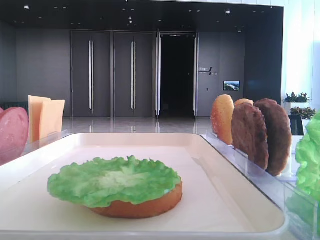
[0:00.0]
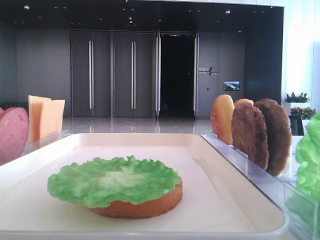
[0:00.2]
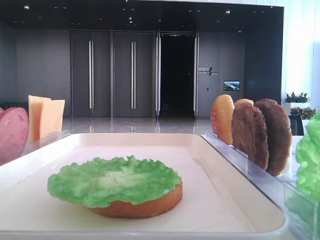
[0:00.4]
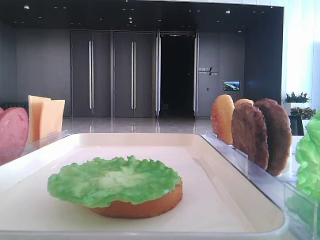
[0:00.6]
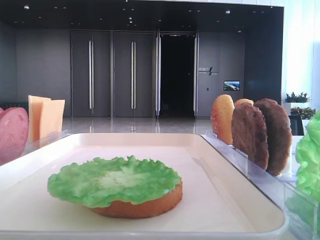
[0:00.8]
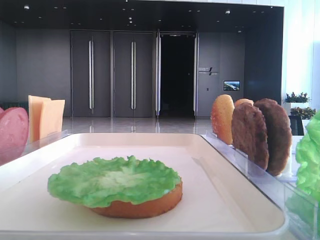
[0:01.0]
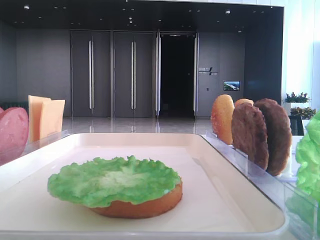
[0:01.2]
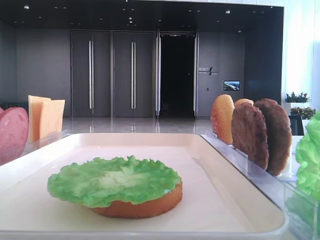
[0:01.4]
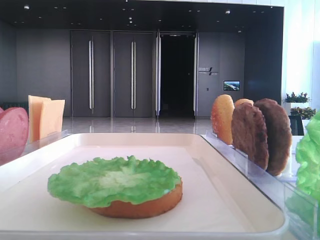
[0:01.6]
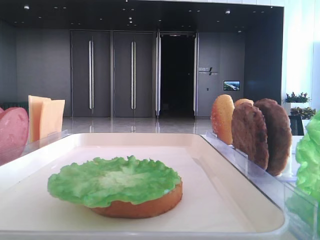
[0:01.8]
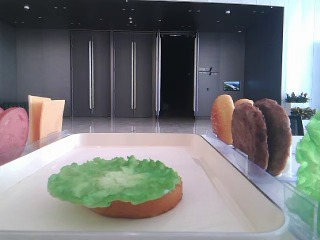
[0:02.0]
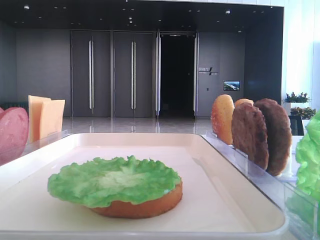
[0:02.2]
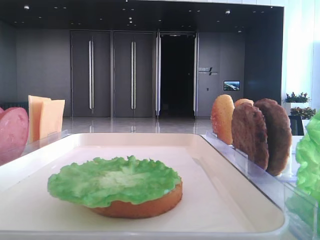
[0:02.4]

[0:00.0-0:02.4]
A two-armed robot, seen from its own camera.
0:00.0 to 0:02.4: Neither gripper changes place.

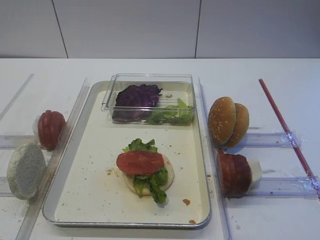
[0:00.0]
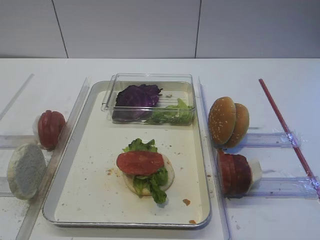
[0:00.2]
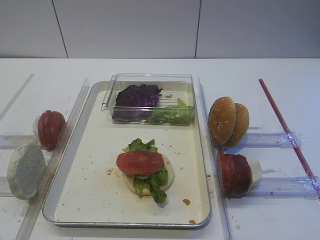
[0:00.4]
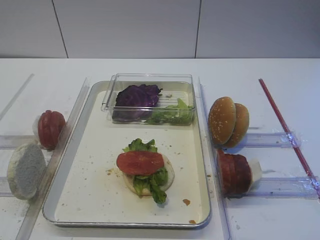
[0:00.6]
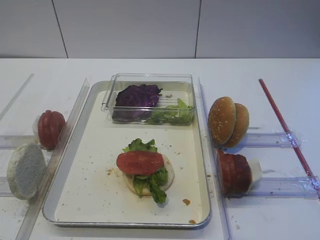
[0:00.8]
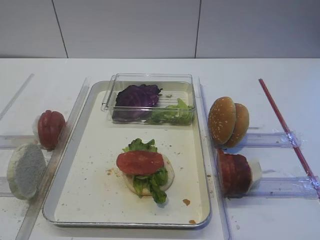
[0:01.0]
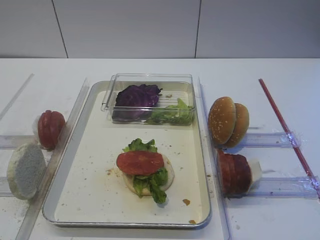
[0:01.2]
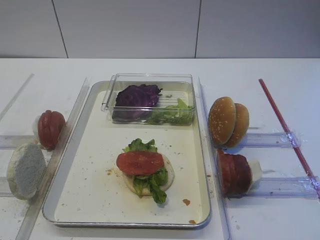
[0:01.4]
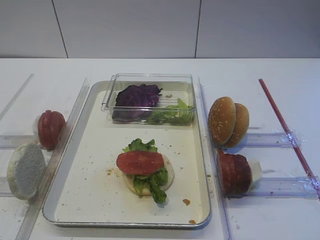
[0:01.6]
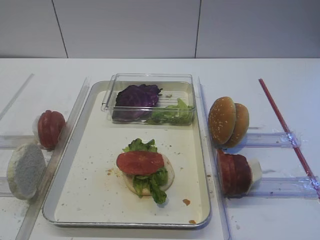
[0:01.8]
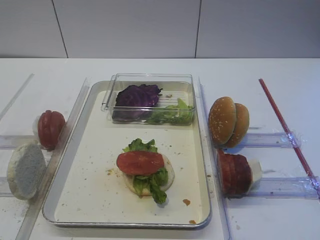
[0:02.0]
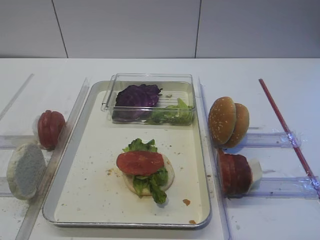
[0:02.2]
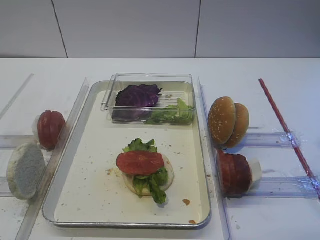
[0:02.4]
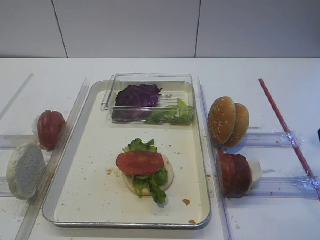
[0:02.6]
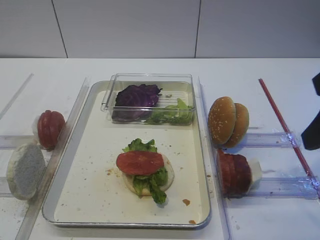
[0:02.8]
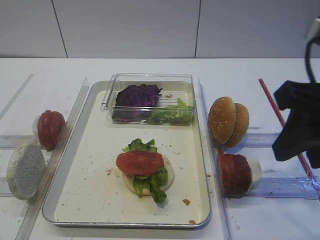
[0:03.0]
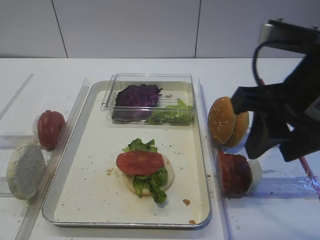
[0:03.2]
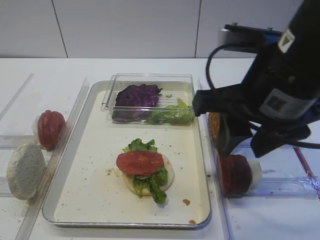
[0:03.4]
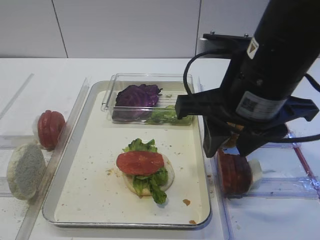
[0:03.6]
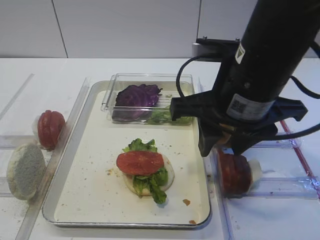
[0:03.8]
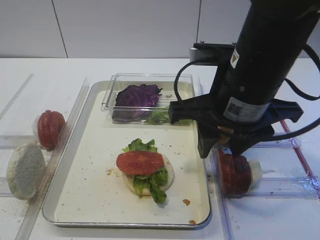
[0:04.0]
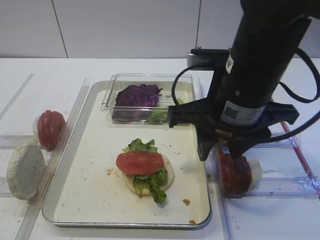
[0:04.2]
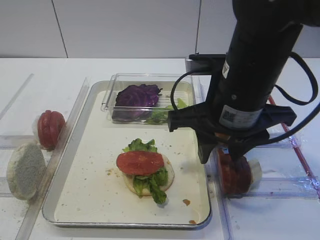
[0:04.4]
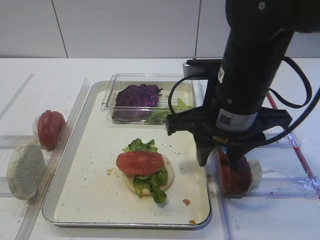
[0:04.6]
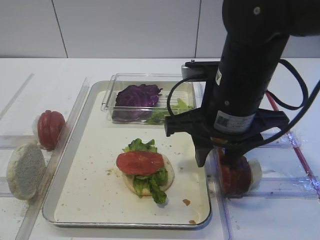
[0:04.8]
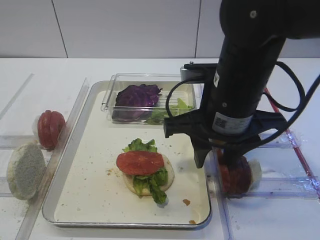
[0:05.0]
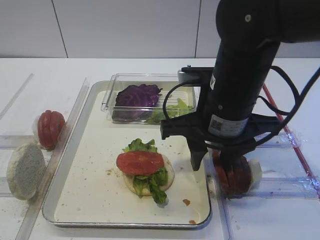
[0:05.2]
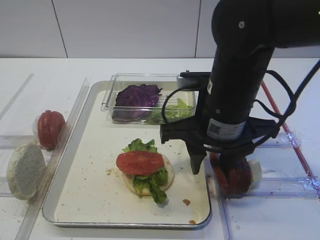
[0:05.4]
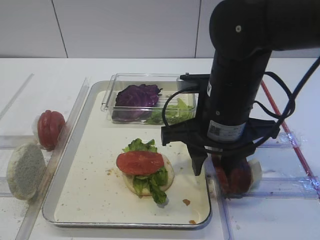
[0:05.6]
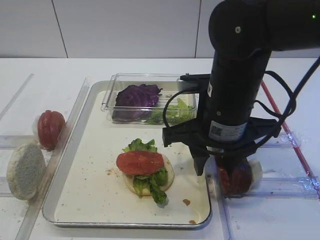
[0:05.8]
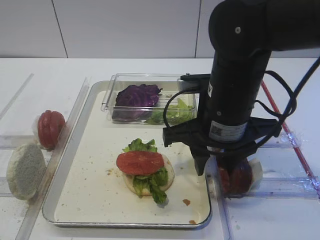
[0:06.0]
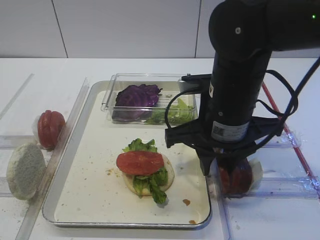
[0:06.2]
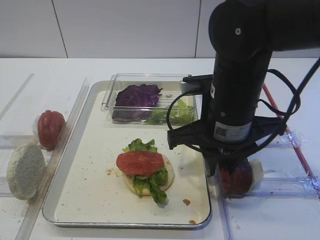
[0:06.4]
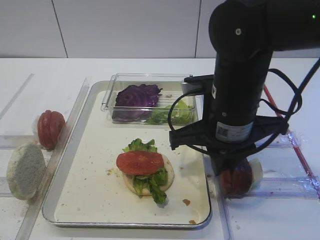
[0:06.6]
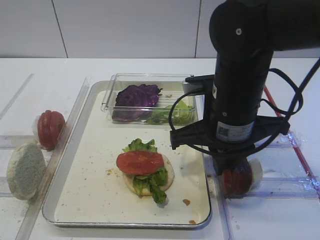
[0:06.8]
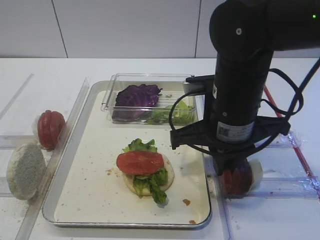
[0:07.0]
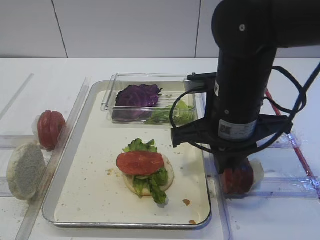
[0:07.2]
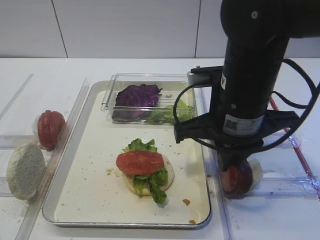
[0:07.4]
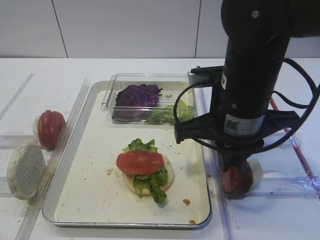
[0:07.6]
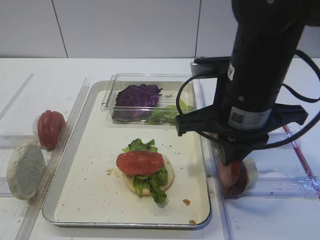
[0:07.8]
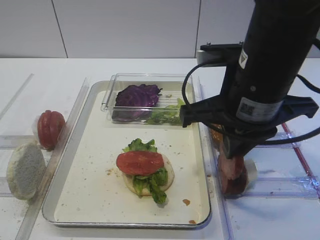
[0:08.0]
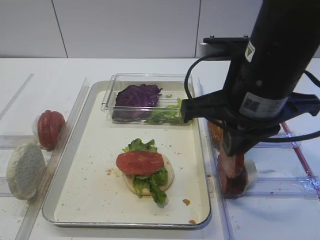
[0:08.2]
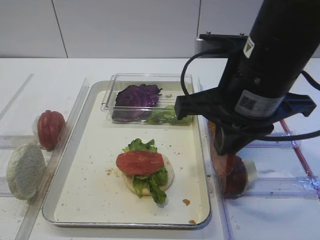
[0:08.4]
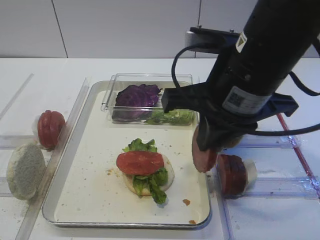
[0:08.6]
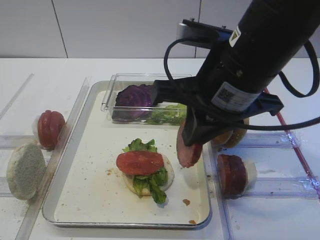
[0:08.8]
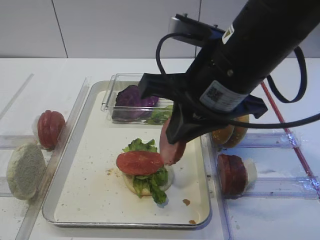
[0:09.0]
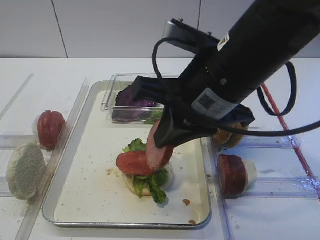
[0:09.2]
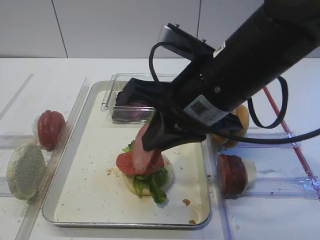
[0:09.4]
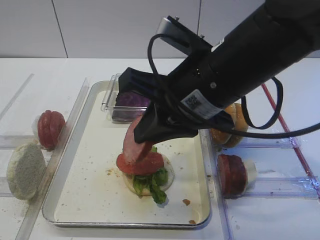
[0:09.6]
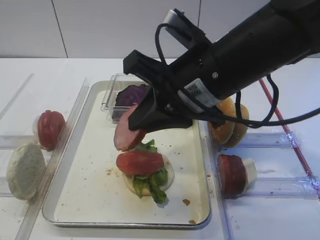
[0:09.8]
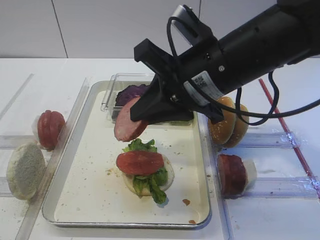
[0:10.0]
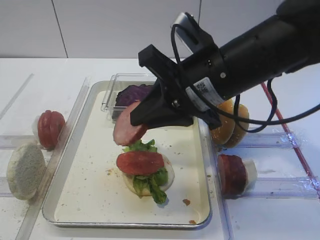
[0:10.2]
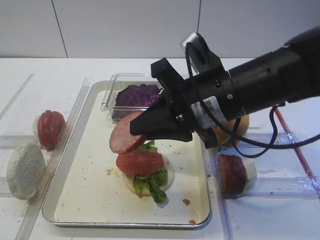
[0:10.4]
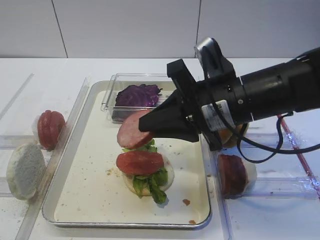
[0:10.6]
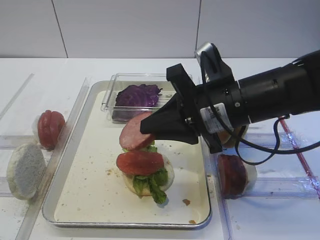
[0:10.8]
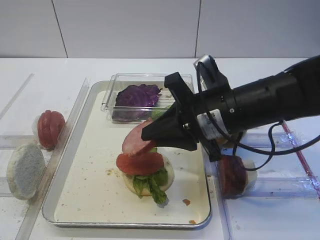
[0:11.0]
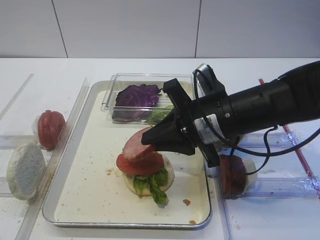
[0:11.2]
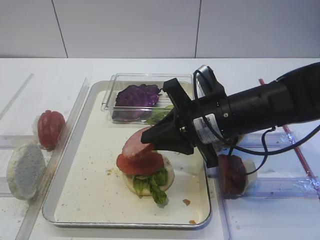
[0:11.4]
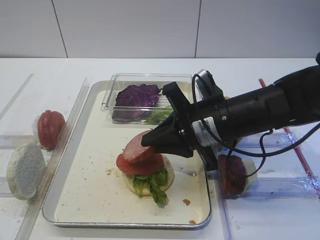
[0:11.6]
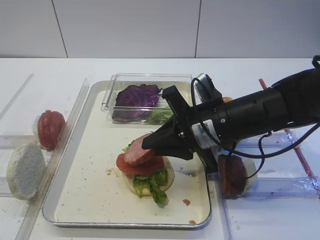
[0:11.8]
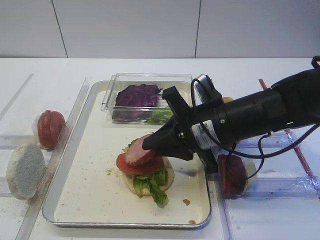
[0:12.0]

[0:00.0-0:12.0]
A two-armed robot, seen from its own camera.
Step, 0:00.0 to 0:08.2: Pick up the cutlet with the right gripper.
0:01.6 to 0:03.0: The right gripper is displaced forward and to the left by roughly 15 cm.
0:03.0 to 0:04.4: The right gripper is displaced to the left, forward and downward by about 15 cm.
0:04.4 to 0:06.0: The grippers stay close to where they were, moving slightly.
0:06.0 to 0:07.6: The right gripper closes its fingers.
0:07.6 to 0:09.0: The right gripper moves upward, approximately 5 cm.
0:09.0 to 0:10.4: The right gripper travels downward by approximately 5 cm.
0:10.4 to 0:12.0: The right gripper shifts some 5 cm downward.

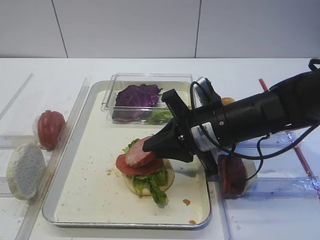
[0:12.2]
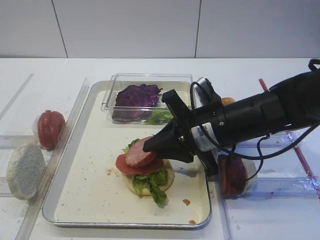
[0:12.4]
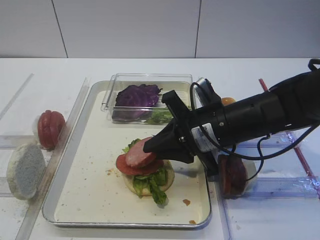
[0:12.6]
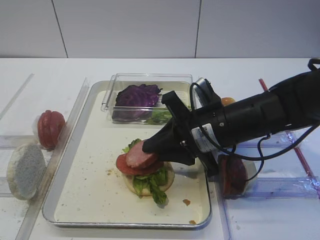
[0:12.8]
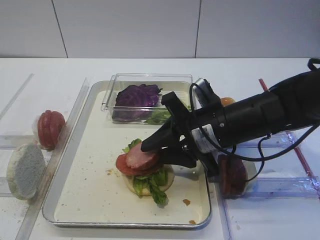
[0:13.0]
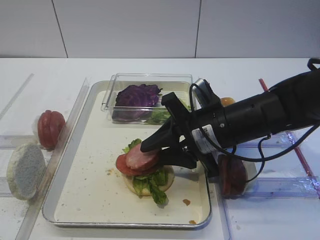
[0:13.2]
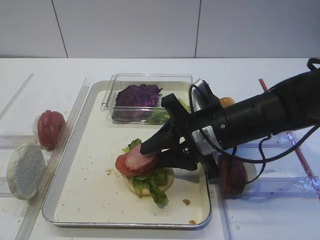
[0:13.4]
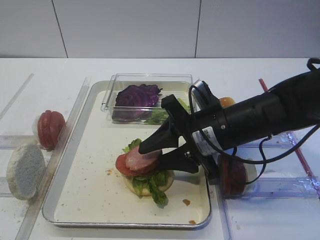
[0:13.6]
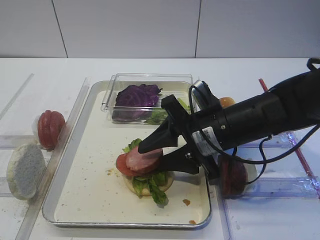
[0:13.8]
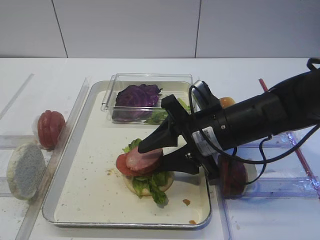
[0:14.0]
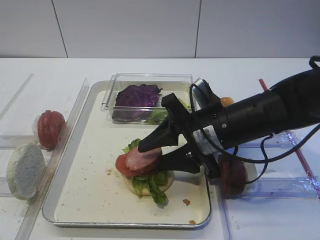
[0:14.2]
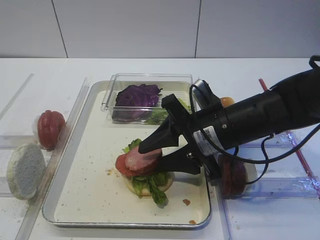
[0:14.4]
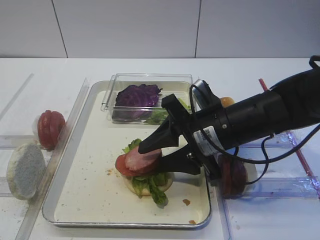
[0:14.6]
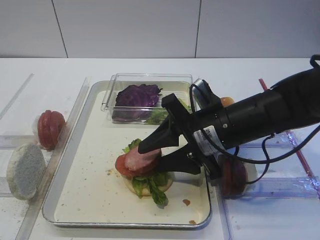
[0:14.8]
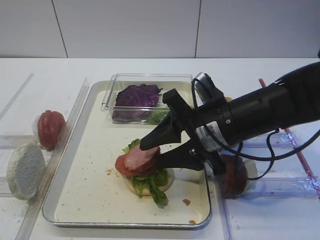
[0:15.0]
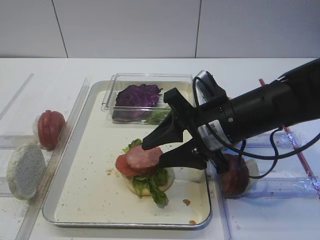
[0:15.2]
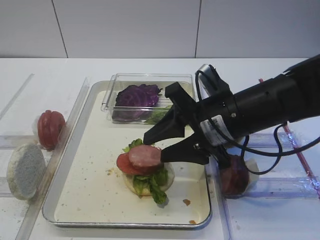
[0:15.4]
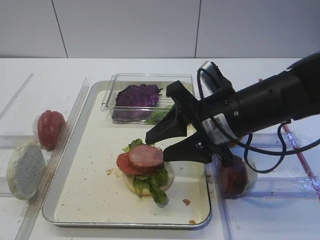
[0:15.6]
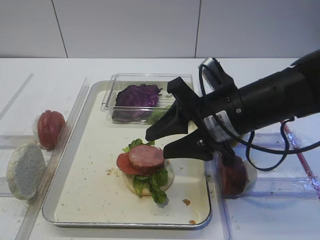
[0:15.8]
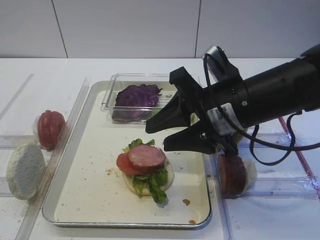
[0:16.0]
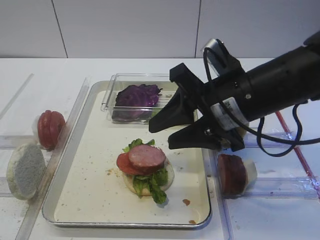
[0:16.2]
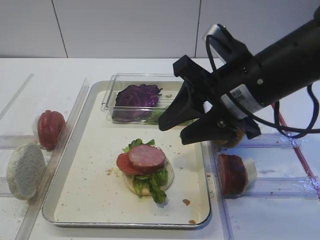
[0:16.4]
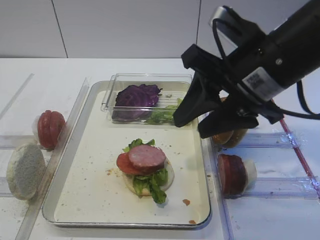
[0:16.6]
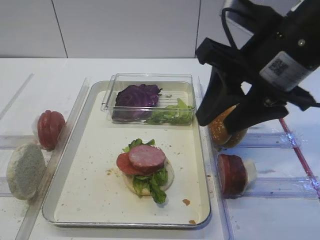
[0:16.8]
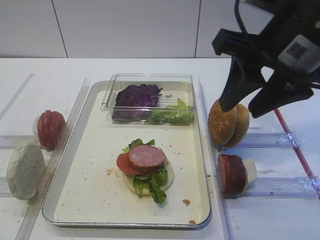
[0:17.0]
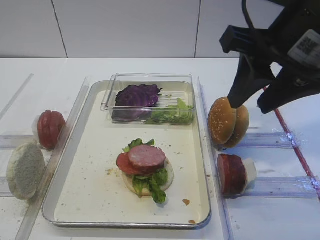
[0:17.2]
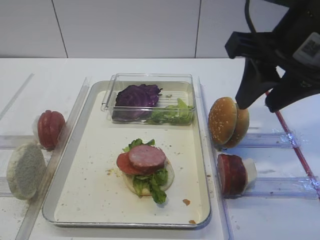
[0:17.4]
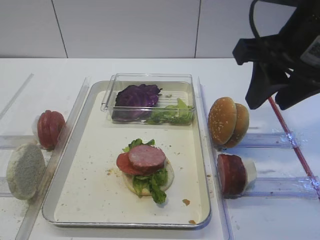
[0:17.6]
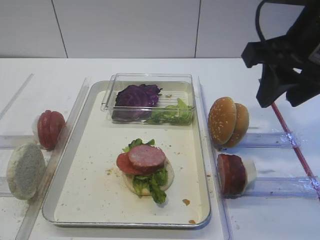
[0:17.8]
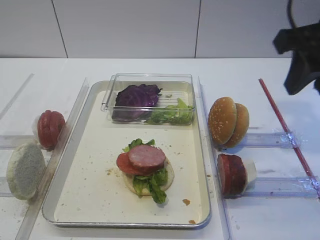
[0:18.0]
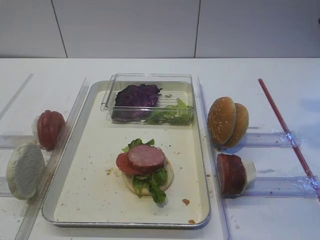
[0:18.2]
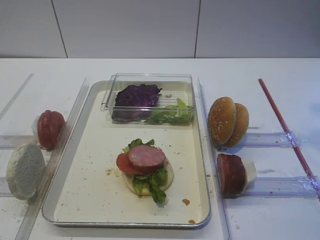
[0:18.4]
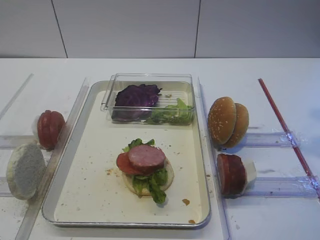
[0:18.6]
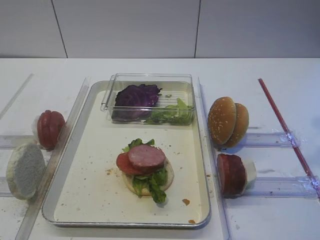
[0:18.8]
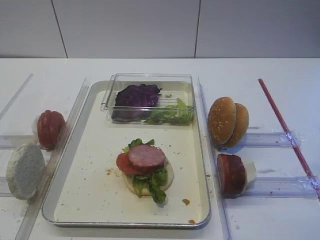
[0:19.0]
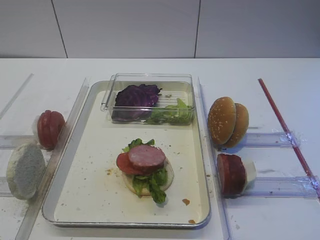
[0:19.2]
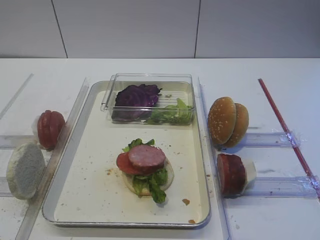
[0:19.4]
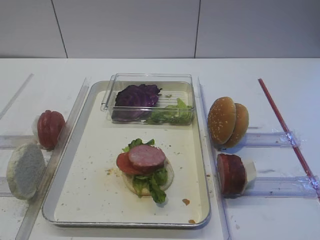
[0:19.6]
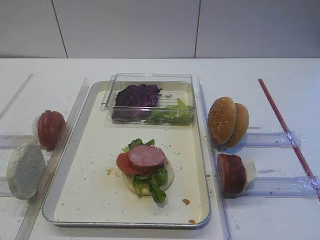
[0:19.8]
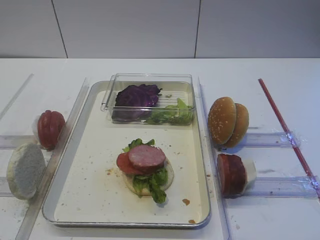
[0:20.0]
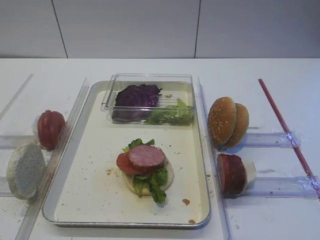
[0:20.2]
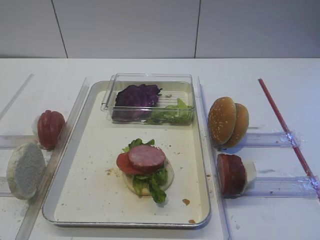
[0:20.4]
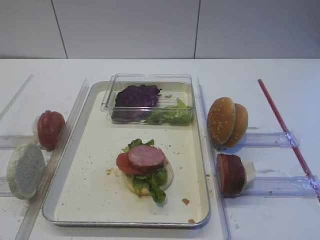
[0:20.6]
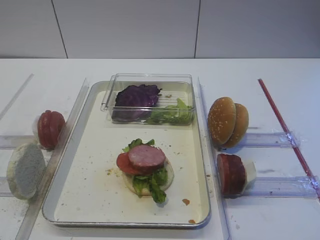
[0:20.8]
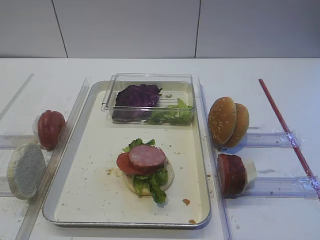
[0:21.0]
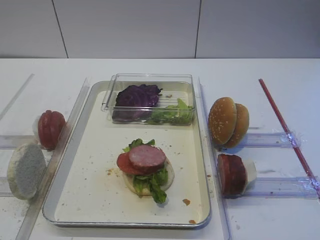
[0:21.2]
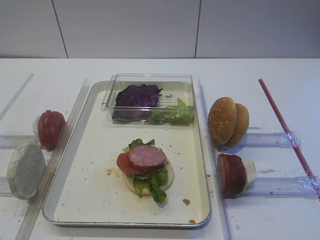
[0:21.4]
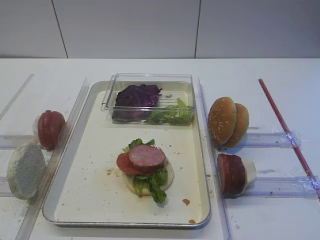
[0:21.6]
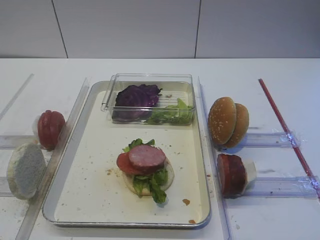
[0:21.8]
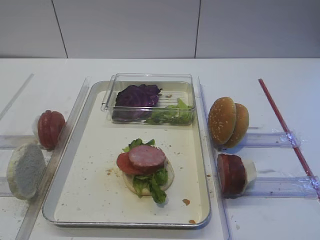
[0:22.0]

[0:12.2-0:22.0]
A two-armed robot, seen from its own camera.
Step, 0:12.2 to 0:15.6: Place the cutlet on the tomato slice with the right gripper.
0:12.2 to 0:13.6: The right gripper opens up.
0:13.6 to 0:15.0: The grippers make only small movements.
0:15.0 to 0:16.4: The right gripper shifts approximately 10 cm upward.
0:16.4 to 0:17.8: The right gripper shifts approximately 10 cm upward and to the right.
0:17.8 to 0:19.2: The right gripper heads backward and to the right, covering approximately 15 cm.
